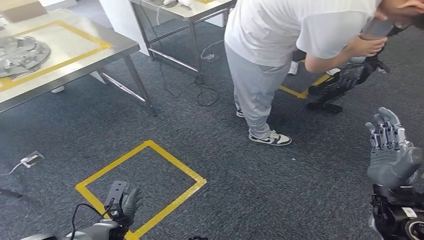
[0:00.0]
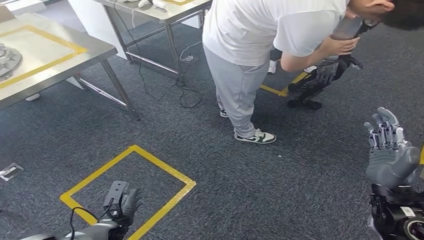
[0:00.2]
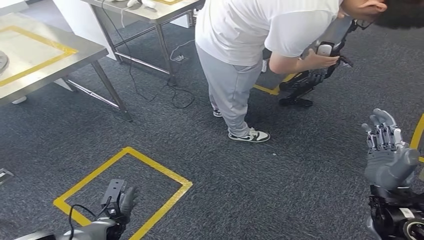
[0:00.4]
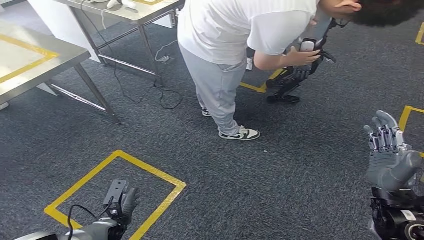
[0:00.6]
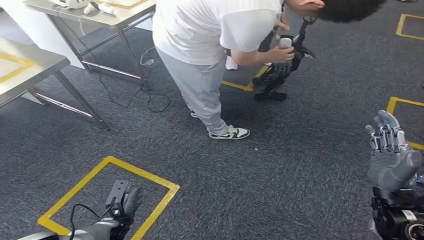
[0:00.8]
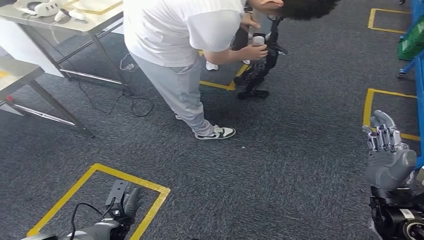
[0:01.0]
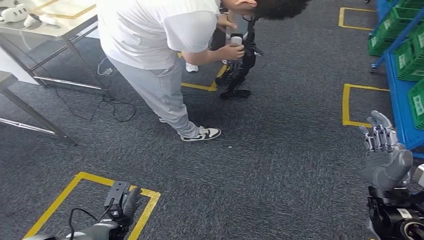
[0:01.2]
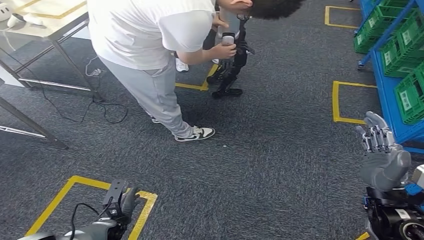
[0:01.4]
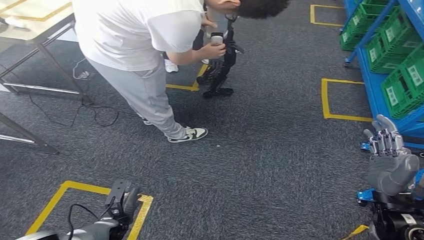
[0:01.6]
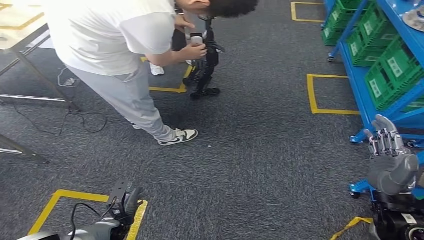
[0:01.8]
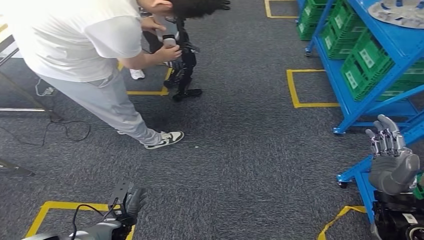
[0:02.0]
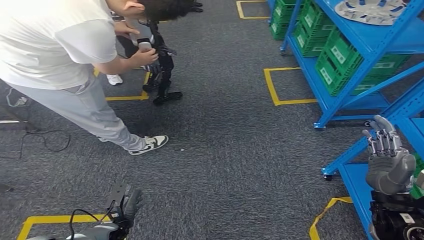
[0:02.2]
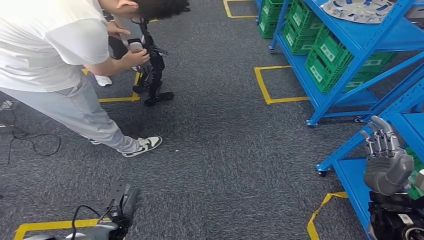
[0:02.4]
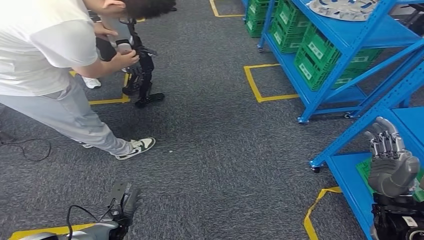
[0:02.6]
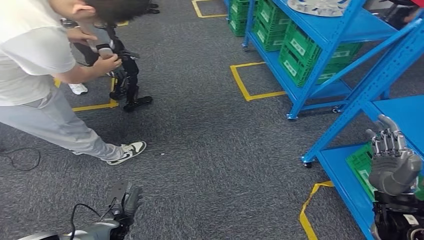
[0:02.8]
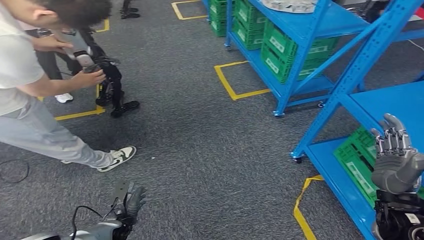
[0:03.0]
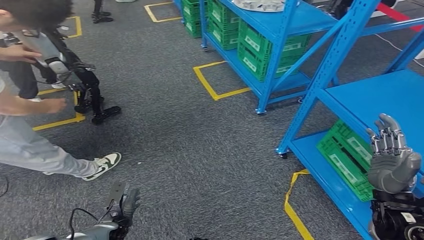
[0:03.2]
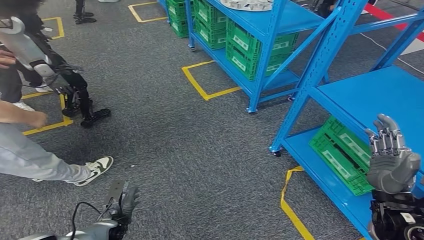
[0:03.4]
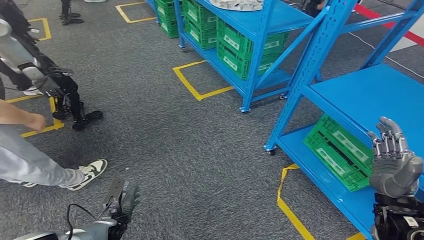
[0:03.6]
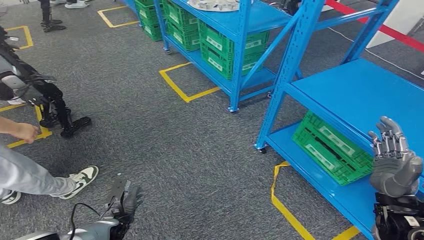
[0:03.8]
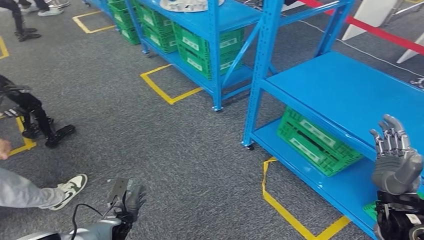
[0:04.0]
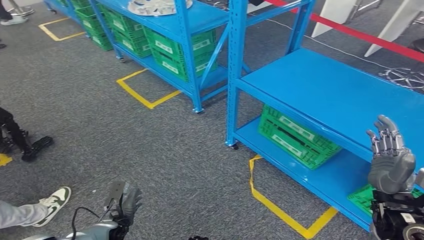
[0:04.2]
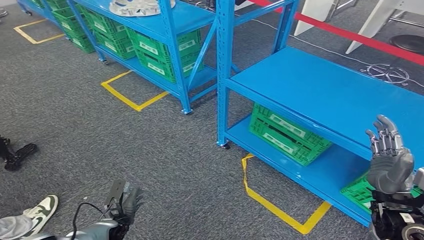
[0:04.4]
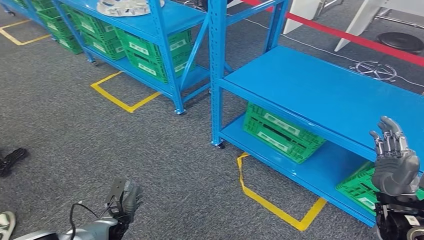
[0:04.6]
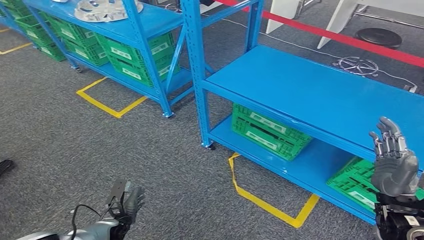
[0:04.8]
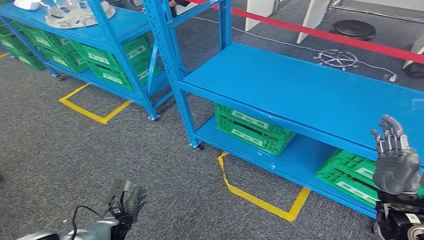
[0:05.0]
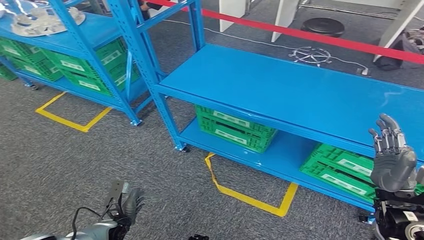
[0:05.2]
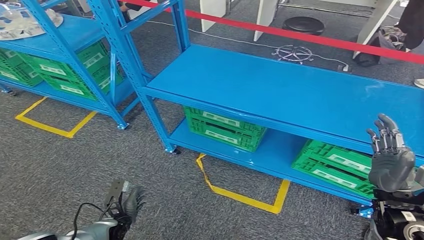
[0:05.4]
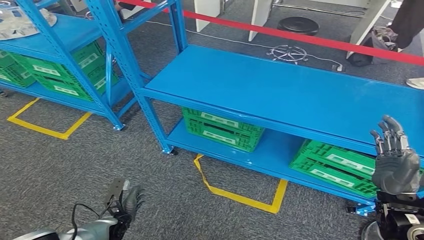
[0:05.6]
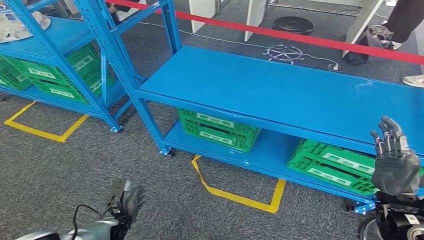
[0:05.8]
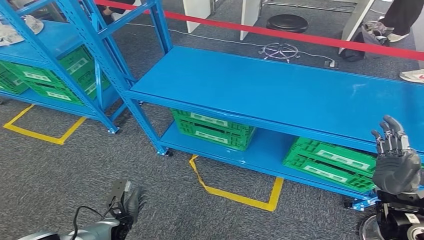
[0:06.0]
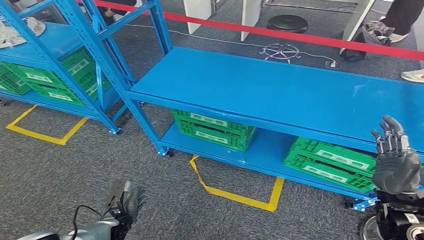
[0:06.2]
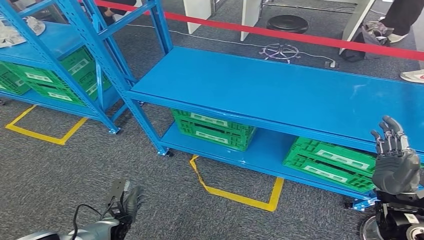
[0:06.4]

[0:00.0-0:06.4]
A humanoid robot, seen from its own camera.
Step, 0:00.0 to 0:06.4: Return to the initial position at the workbench.

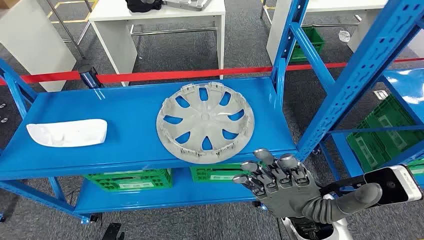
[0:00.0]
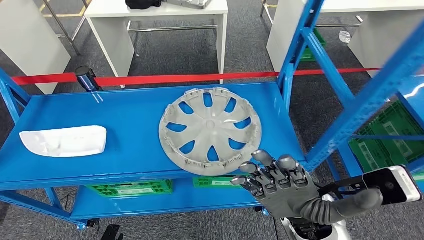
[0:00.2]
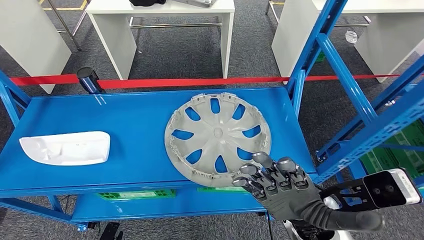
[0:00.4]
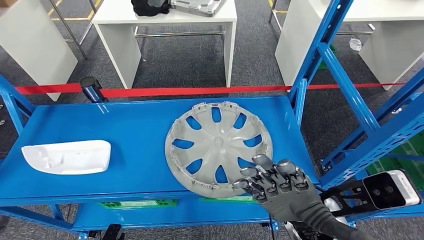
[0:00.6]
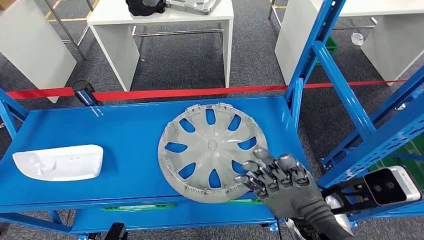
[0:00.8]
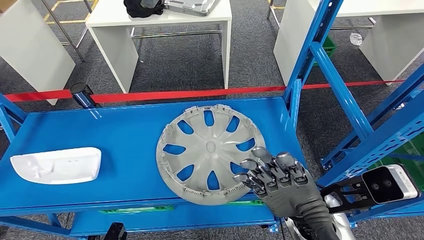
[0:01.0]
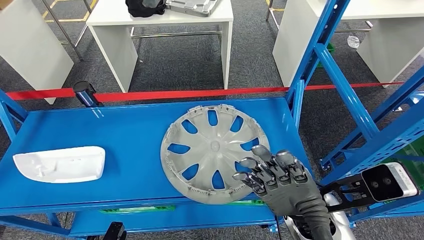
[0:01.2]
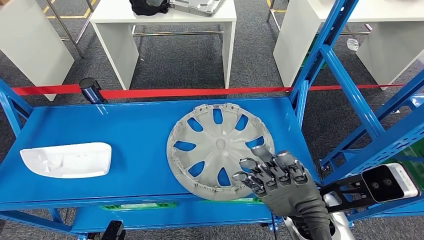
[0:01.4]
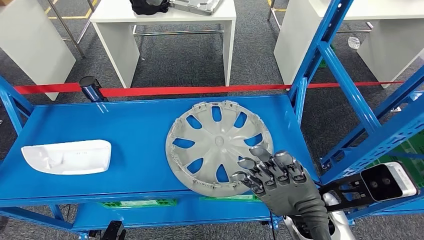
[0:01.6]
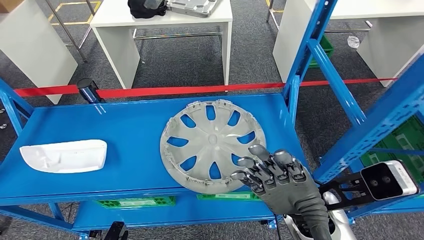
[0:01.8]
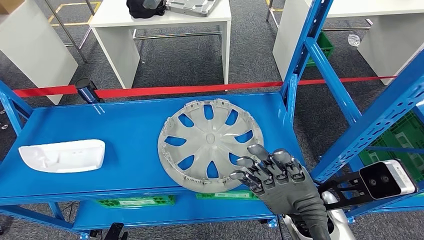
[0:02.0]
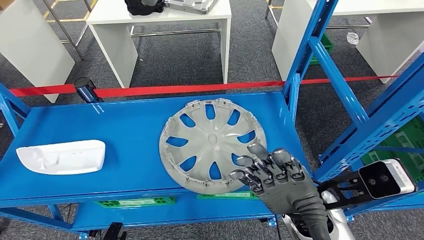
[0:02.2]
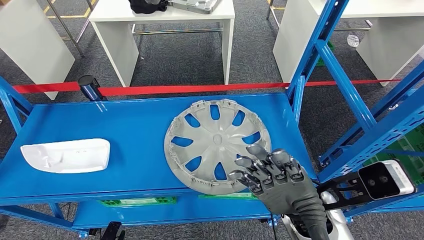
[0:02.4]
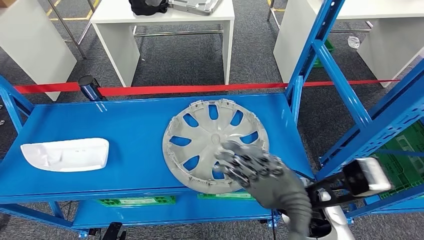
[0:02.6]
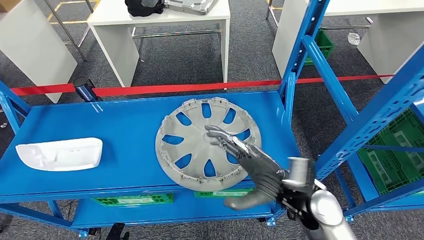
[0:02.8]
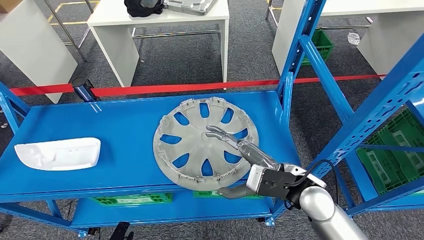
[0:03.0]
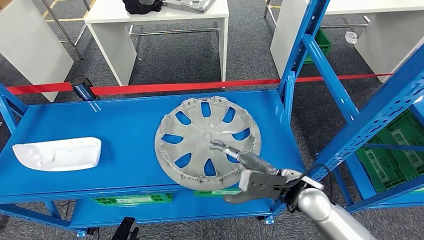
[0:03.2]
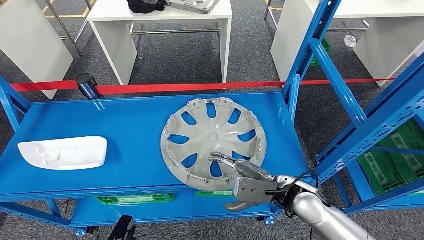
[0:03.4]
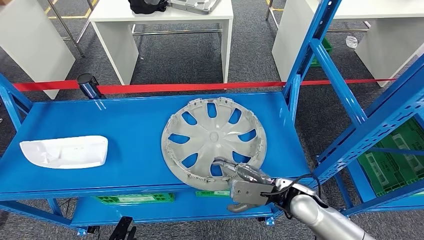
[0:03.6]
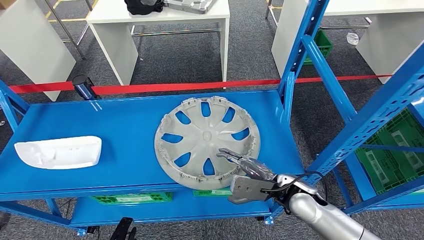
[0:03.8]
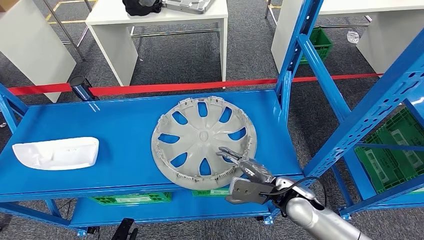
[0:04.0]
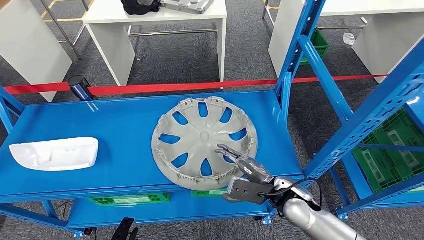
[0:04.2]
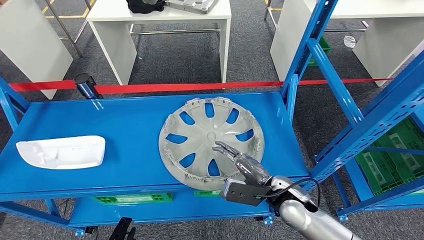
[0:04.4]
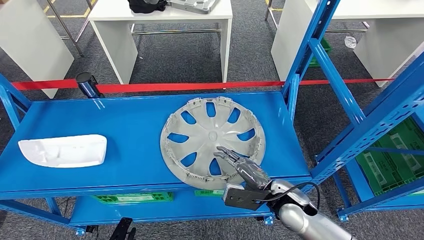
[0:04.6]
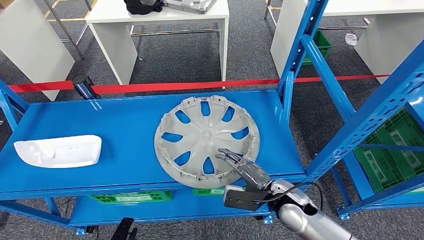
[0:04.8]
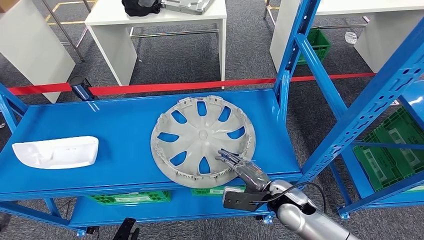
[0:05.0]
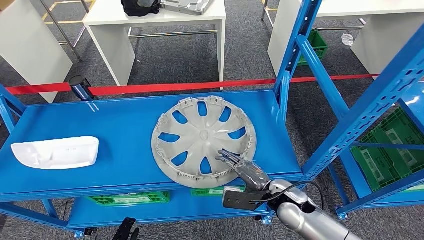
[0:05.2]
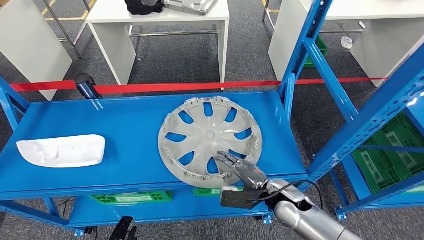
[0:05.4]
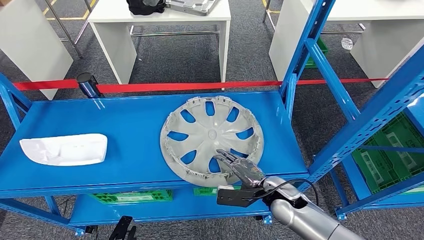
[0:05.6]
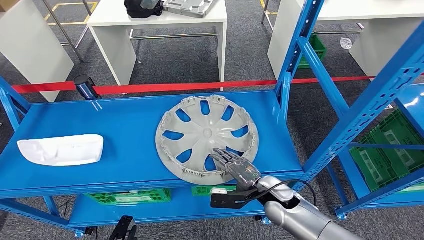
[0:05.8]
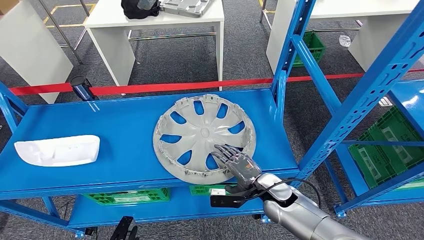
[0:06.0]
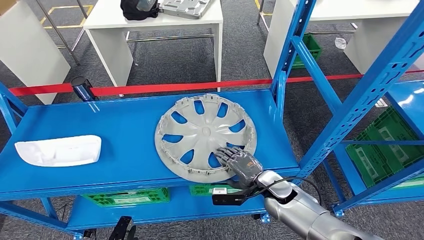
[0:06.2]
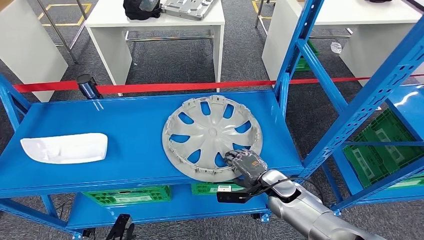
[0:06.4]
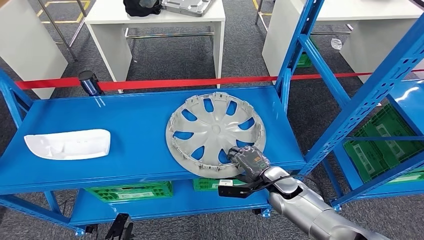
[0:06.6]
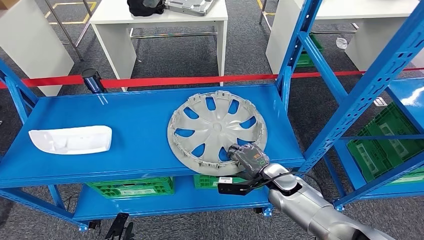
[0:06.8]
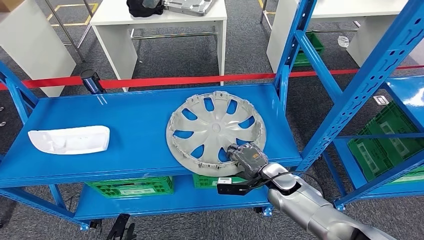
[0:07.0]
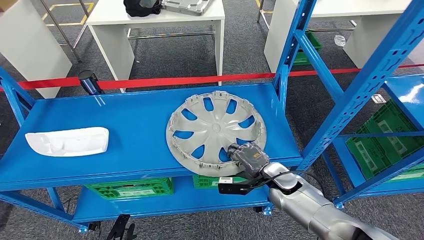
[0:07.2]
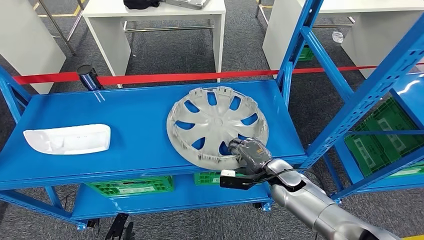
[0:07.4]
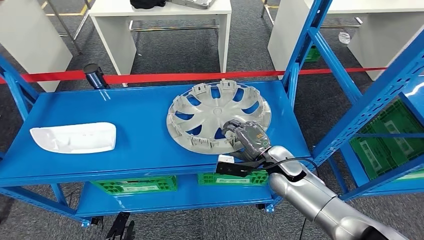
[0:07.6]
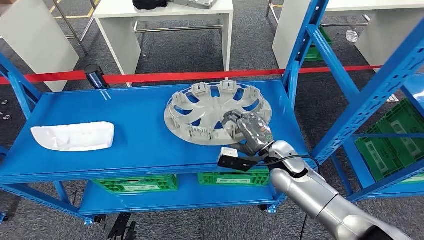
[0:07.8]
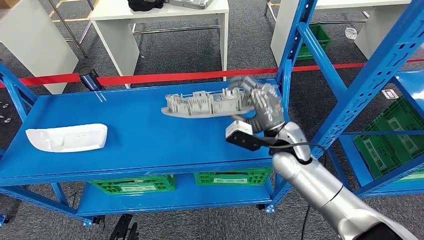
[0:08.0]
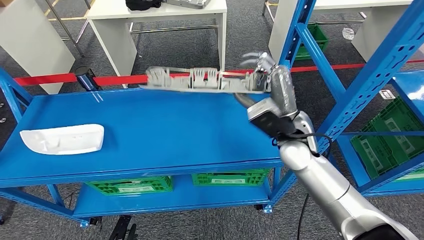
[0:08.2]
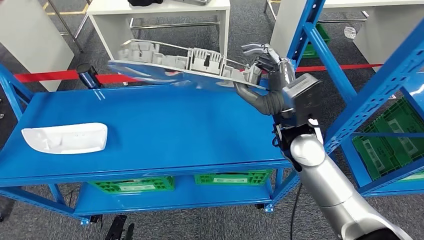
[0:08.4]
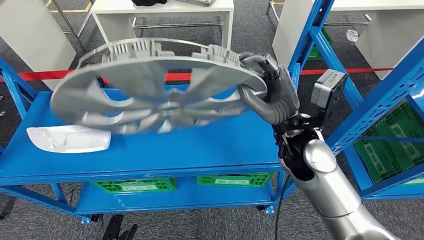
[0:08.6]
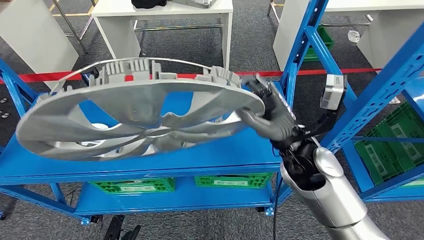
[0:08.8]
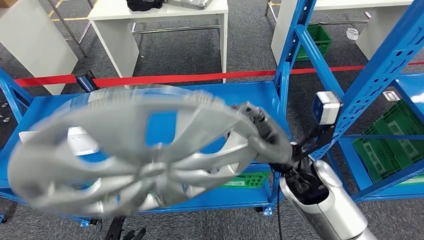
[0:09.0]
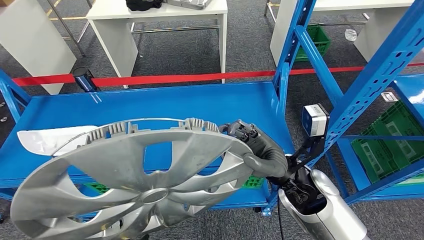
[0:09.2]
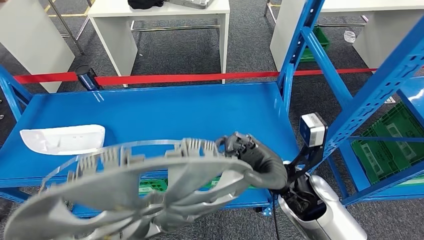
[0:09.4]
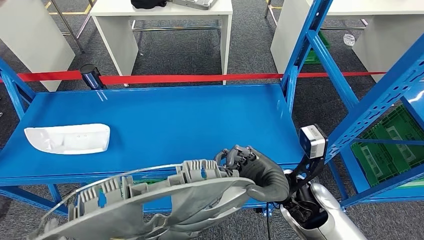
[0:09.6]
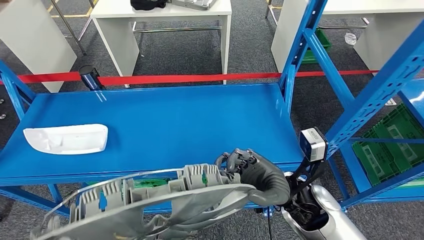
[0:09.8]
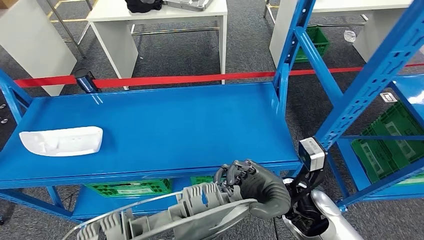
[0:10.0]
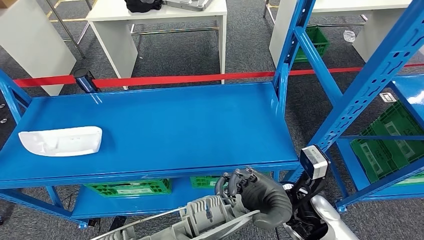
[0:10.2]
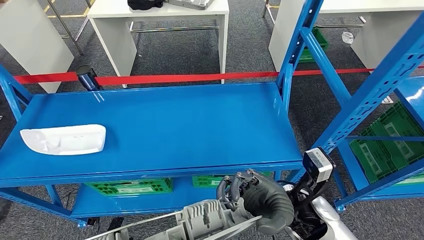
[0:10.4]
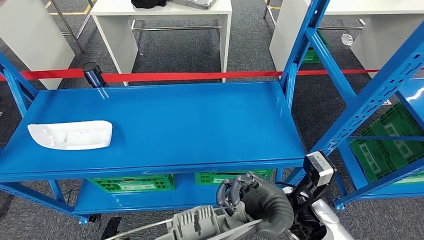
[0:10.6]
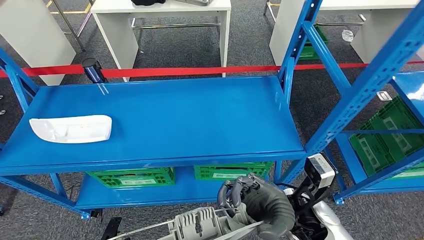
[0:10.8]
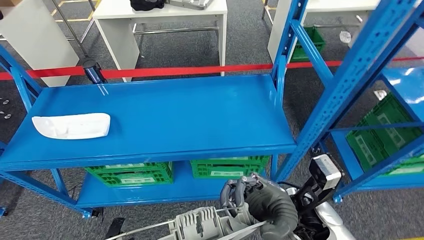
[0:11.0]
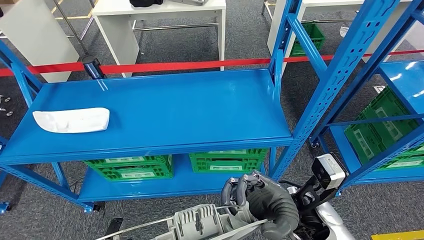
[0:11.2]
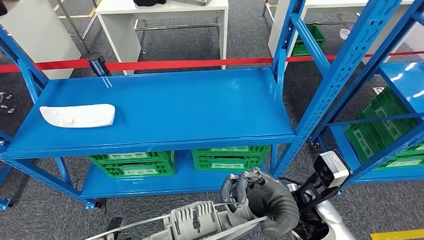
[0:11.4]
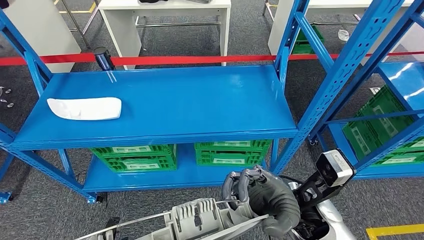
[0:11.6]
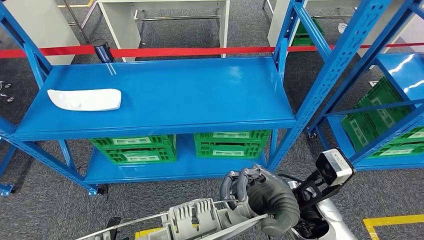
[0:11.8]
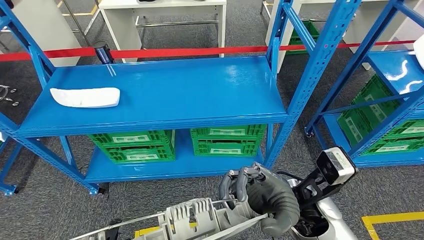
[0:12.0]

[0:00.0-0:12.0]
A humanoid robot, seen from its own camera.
Step, 0:00.0 to 0:09.6: Pick up the small parts from the shelf.
